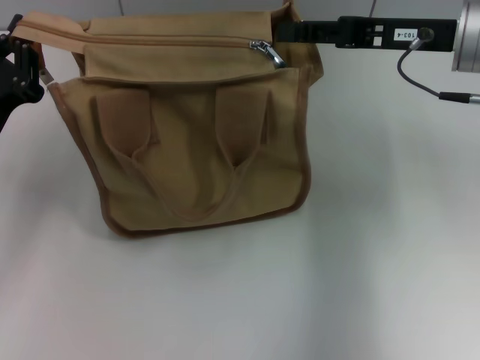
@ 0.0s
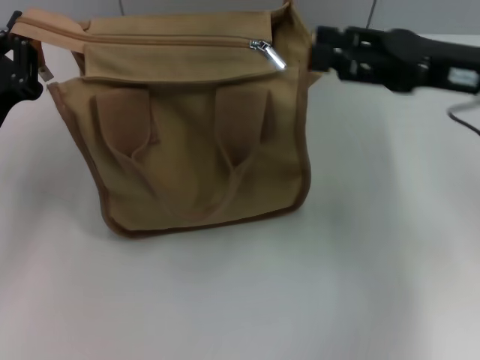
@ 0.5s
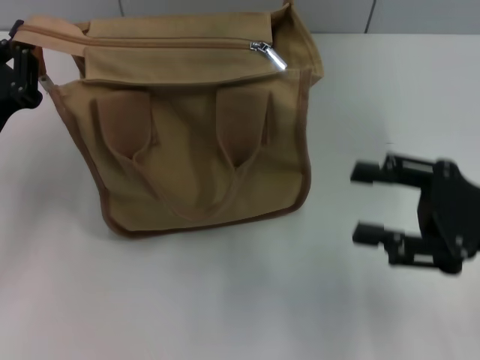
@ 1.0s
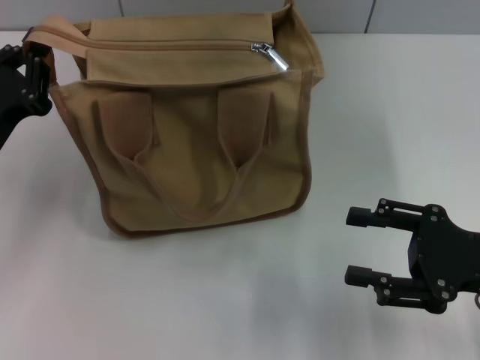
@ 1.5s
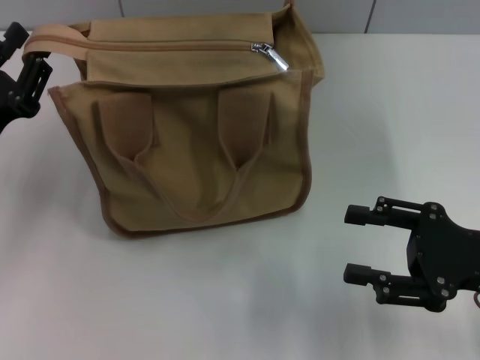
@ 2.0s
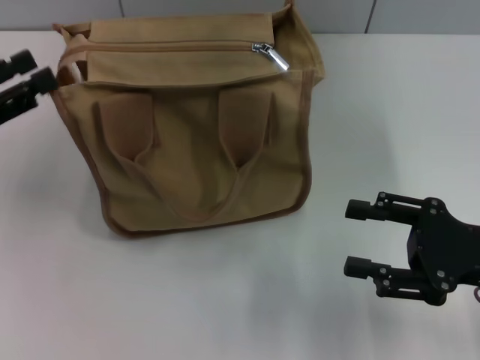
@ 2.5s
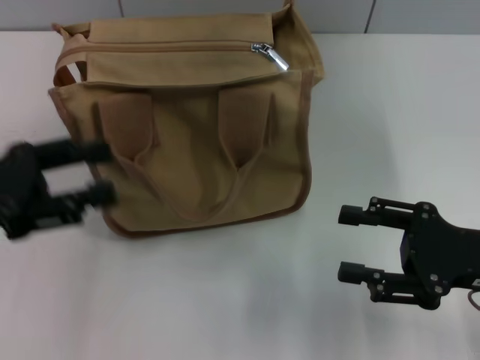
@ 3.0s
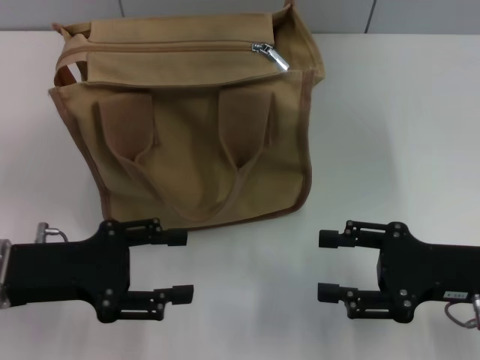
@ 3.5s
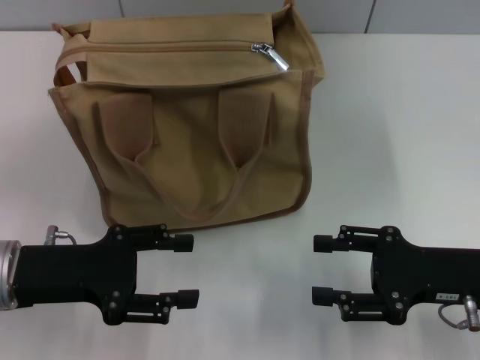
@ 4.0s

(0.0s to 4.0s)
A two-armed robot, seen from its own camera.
Step, 0.0s - 2.5s: Grab the zipper with your left hand.
0.0s - 2.0s: The right gripper goes approximately 20 cm backward, downward and to the right, and opens up.
2.0s - 4.0s: The left gripper opens its fingers.

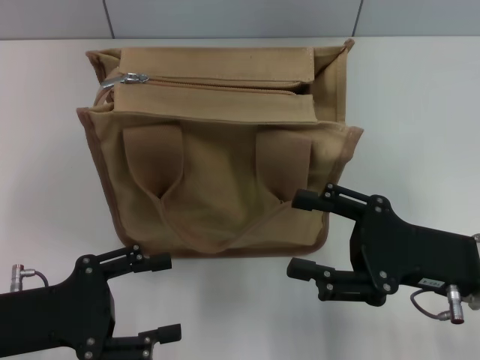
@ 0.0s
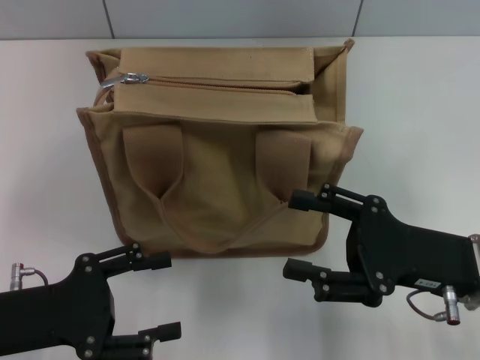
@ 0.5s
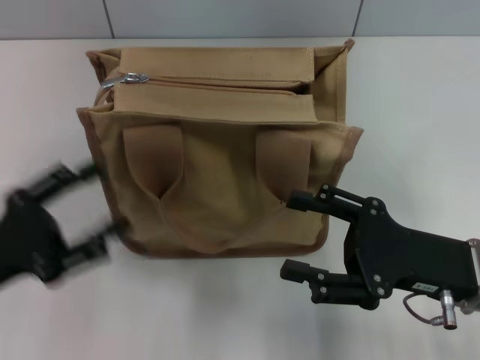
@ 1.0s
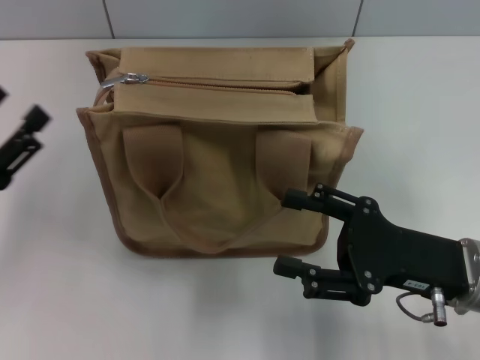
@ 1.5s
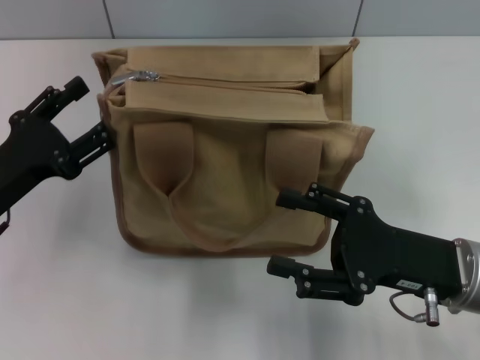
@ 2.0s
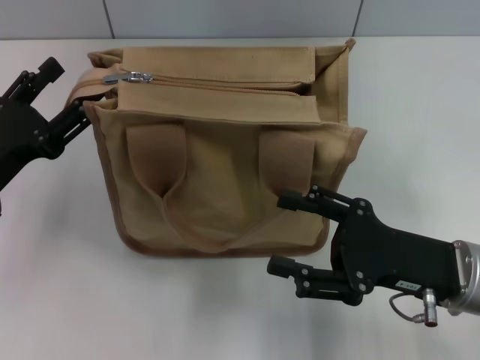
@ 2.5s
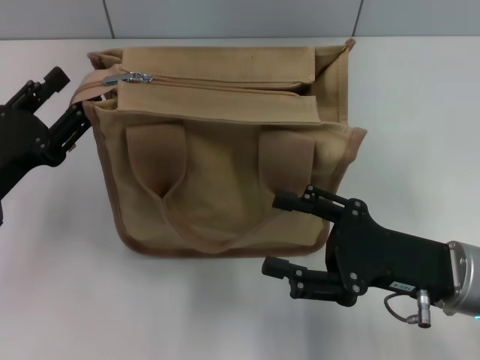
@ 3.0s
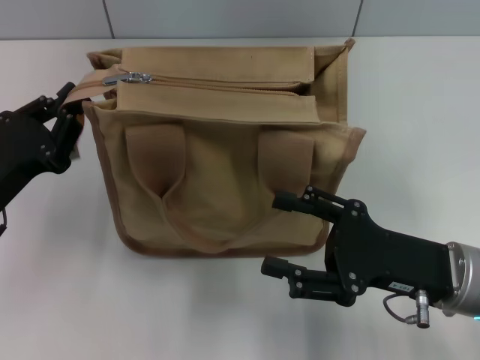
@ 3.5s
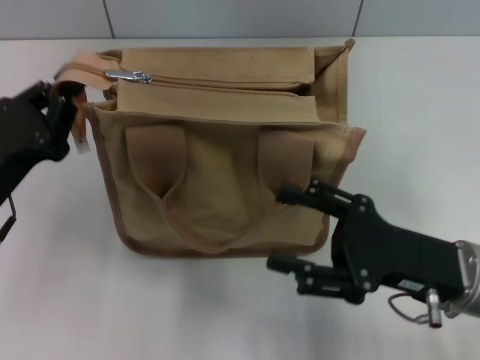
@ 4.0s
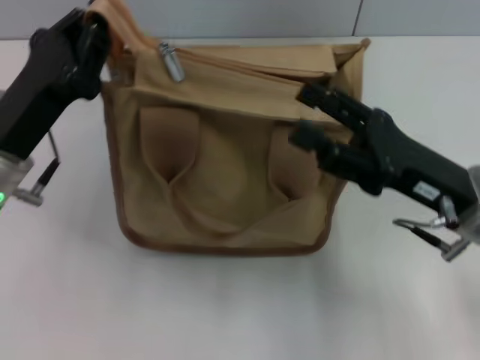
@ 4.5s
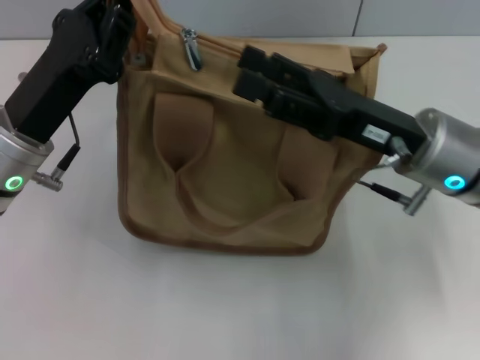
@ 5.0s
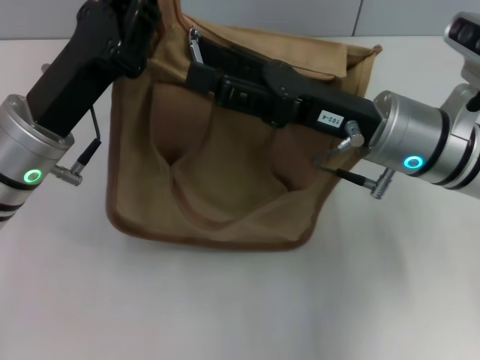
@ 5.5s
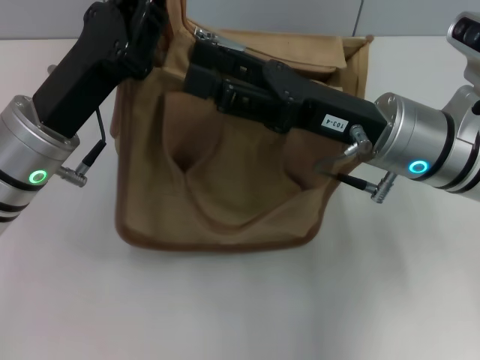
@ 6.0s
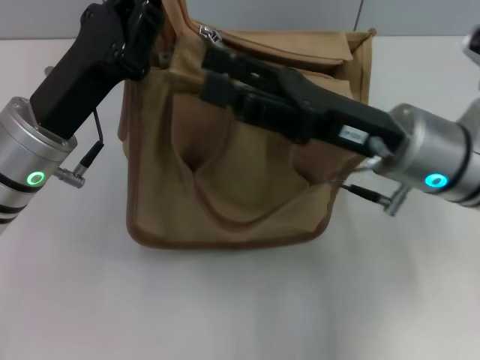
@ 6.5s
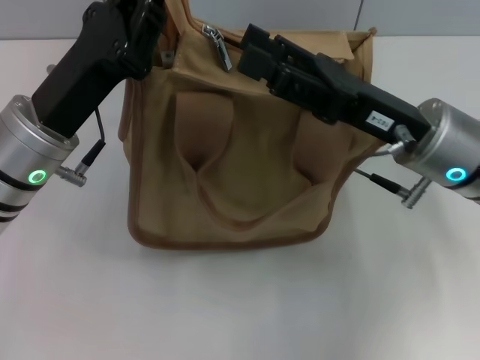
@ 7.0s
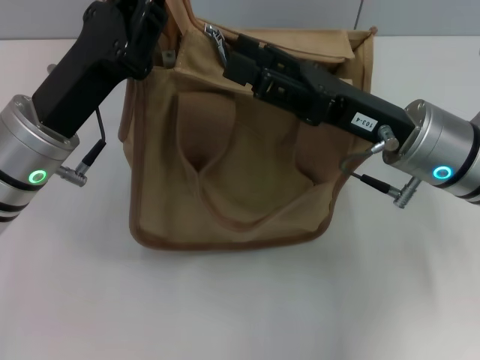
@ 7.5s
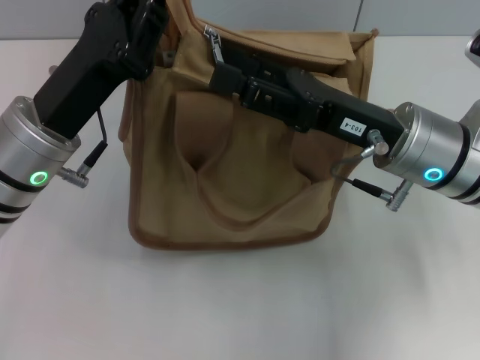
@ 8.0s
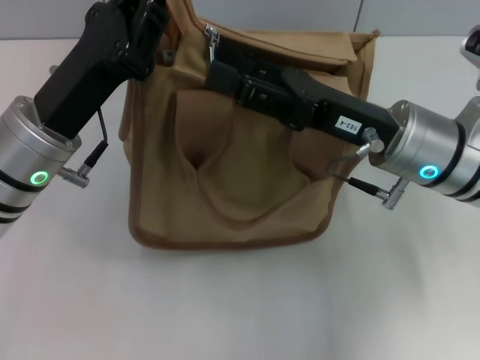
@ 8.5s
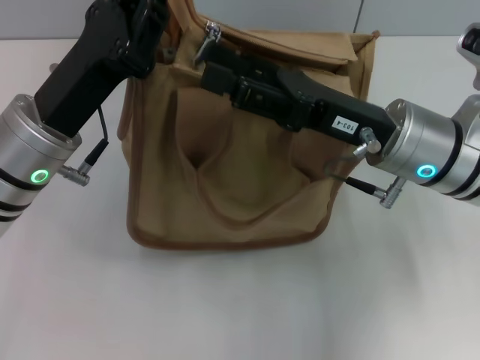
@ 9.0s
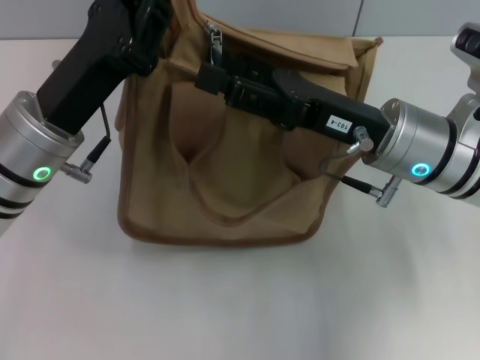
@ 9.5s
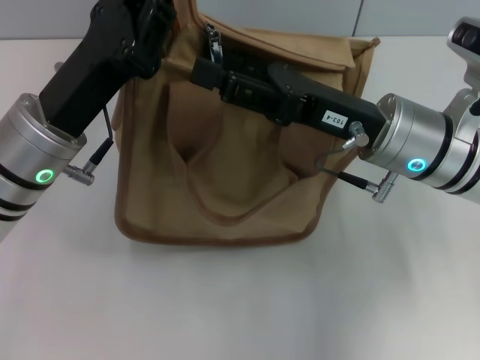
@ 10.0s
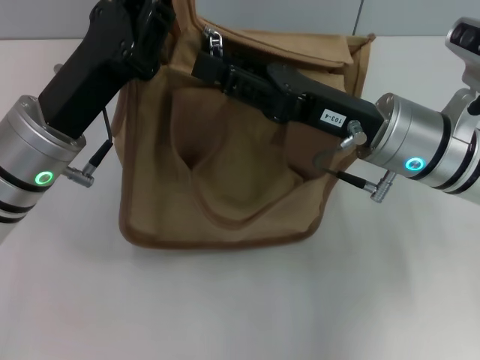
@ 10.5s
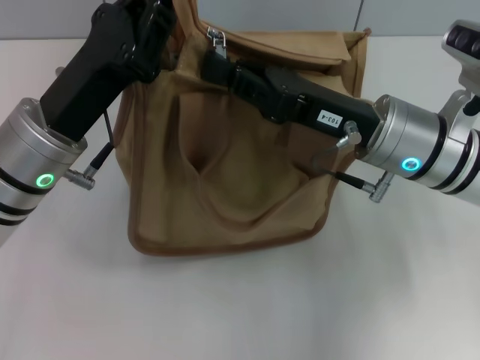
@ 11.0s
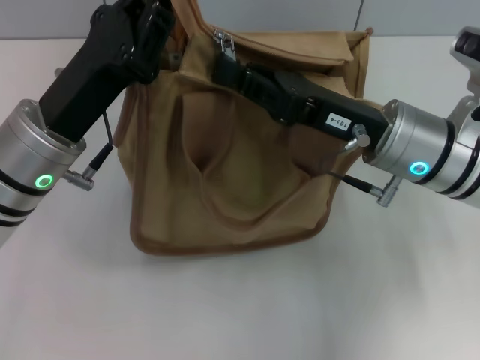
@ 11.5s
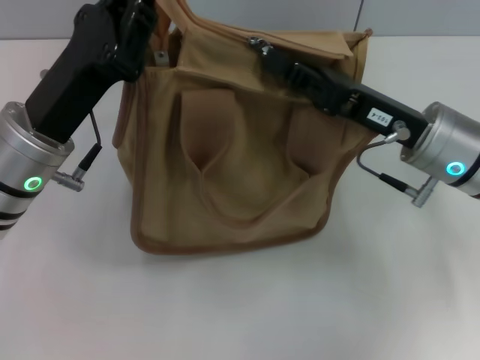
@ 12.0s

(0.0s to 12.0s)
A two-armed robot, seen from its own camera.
0.0s - 2.0s: The left gripper goes about 5 cm forward.
2.0s - 4.0s: The left gripper closes up.
4.0s - 6.0s: The right gripper is displaced forward, upward and to the left by about 15 cm. The left gripper goes roughly 10 cm to the right and forward.
6.0s - 8.0s: The grippers make only small movements.
8.0s - 10.0s: Both grippers stay about where they are.
10.0s - 12.0s: The right gripper closes its fingers.

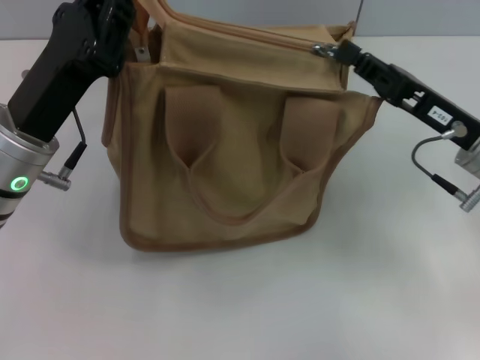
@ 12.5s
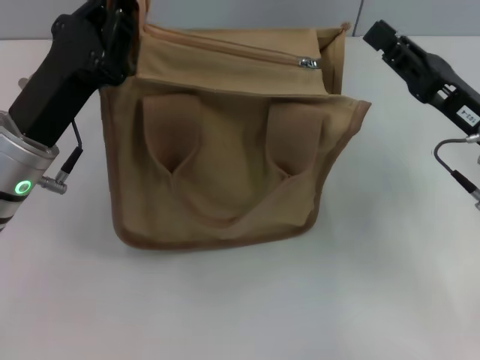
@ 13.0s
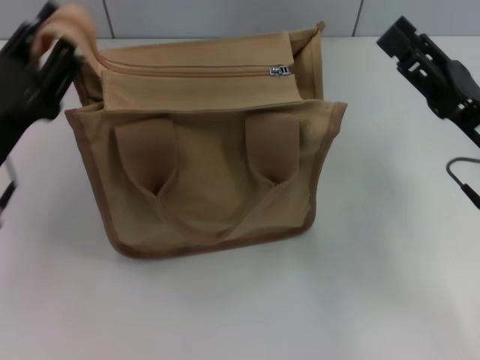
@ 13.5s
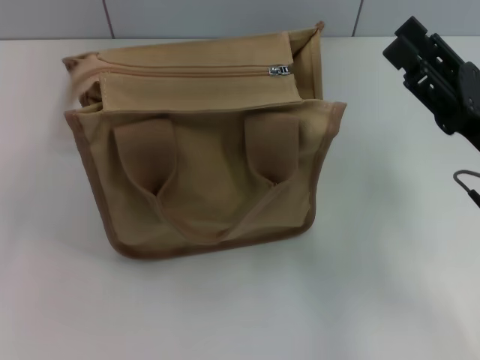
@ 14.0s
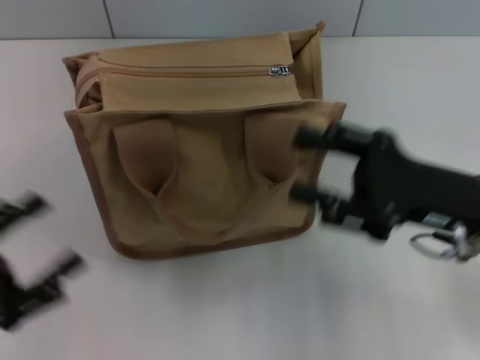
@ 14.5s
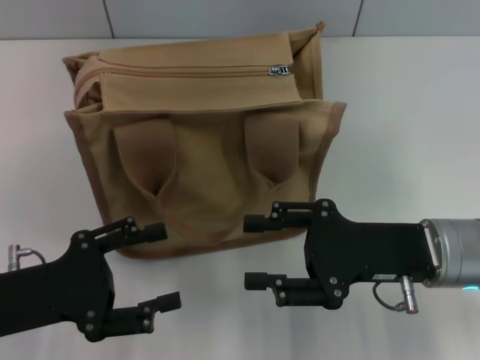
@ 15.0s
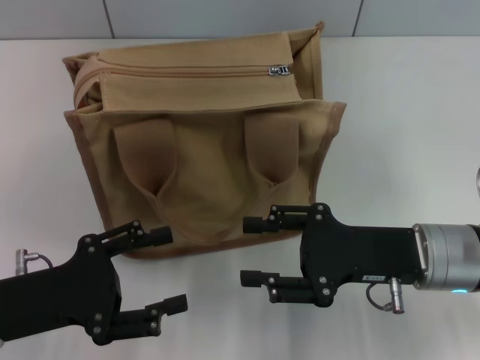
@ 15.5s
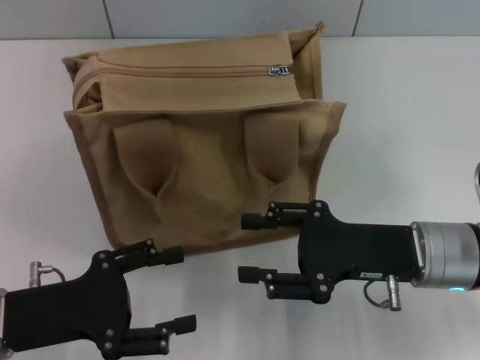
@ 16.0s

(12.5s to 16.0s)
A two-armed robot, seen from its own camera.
Step, 13.0s - 13.5s: Grab the zipper with your left hand.
12.5s - 14.5s: The left gripper heads backward and to the left, covering some 20 cm, and opens up. Meanwhile the right gripper opens.
14.5s - 16.0s: The left gripper goes roughly 5 cm to the right.

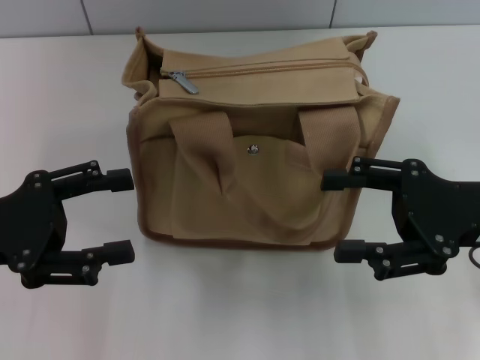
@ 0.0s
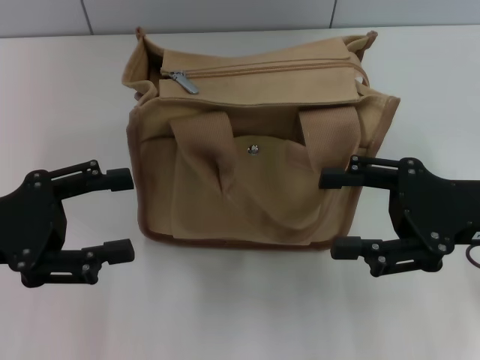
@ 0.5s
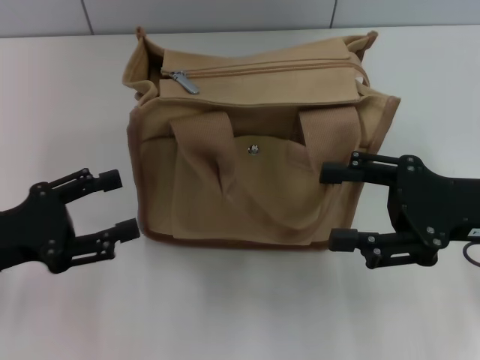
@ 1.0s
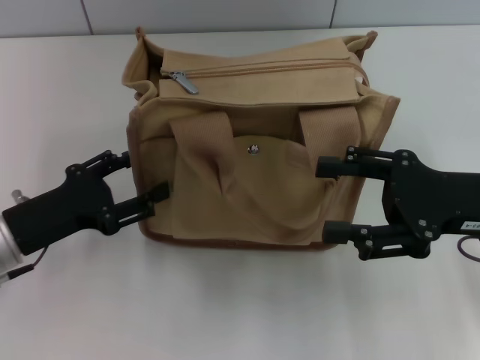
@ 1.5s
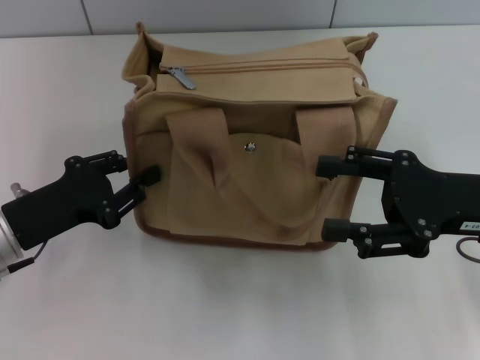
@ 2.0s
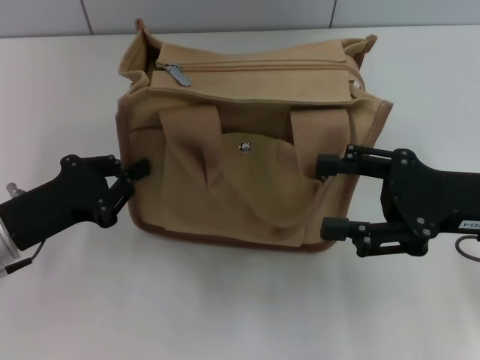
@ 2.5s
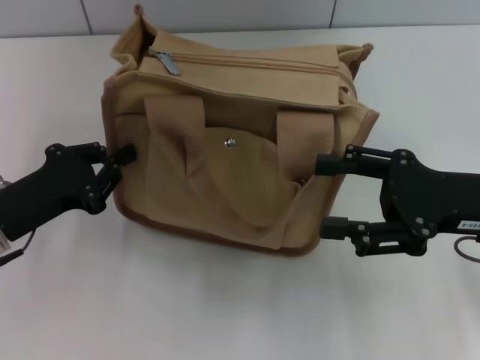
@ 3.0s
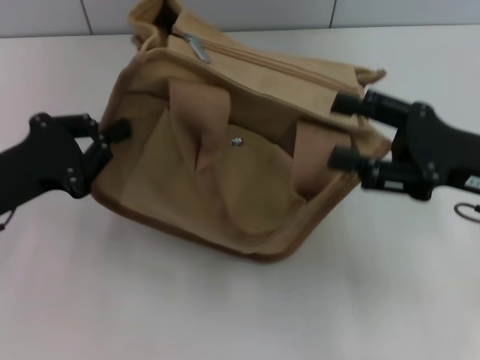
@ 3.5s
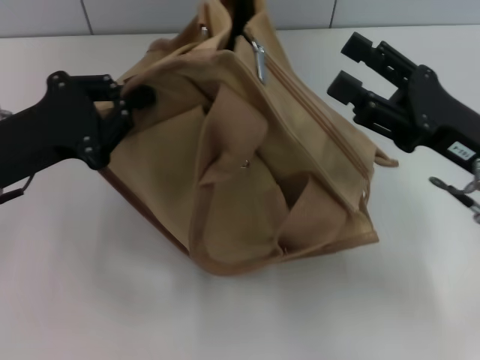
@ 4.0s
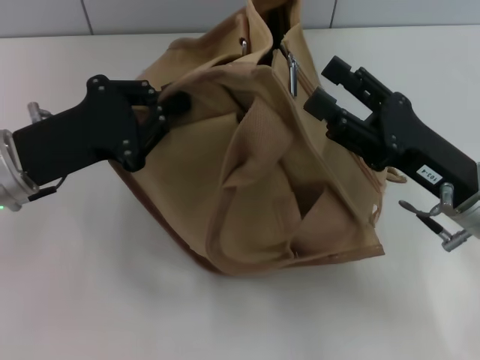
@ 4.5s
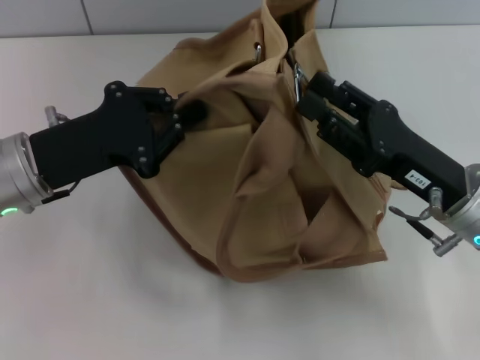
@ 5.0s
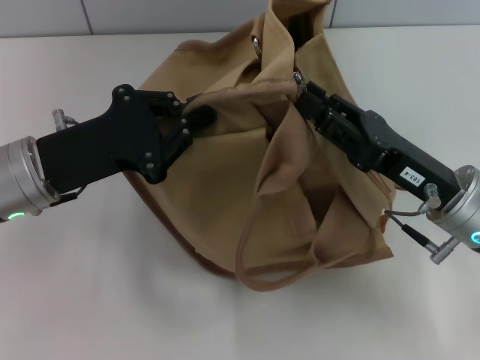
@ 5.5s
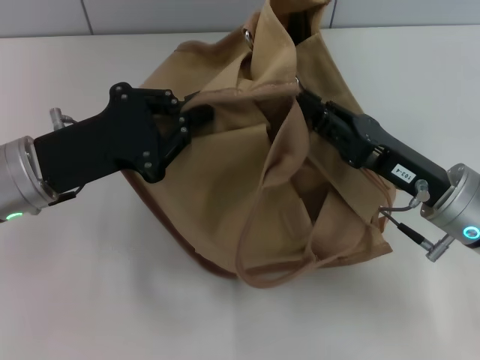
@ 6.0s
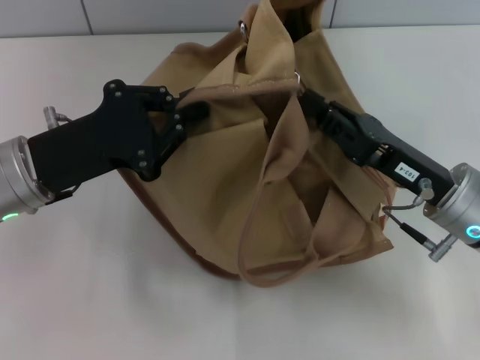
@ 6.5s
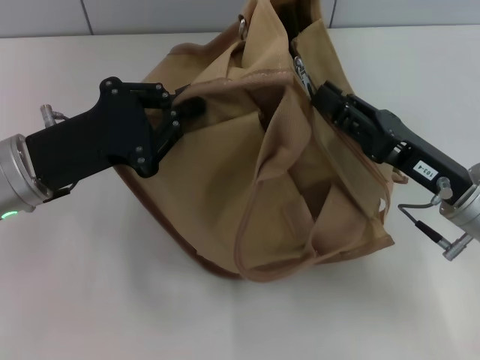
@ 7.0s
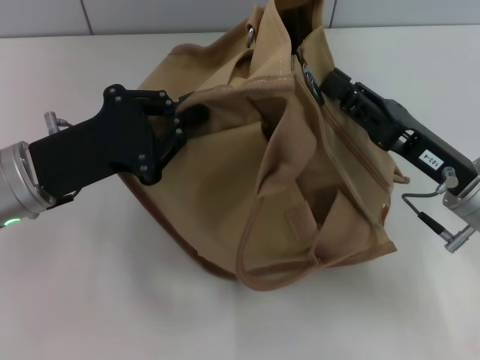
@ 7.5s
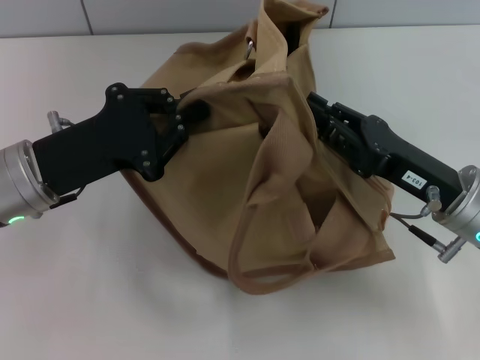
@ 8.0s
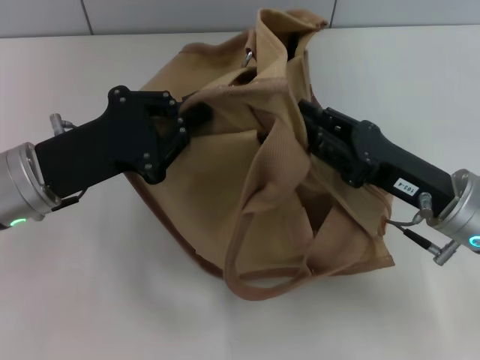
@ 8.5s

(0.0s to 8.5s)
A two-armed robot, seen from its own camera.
0.0s - 2.0s: The left gripper is displaced downward by some 5 cm, and closes up.
2.0s - 4.0s: The left gripper moves upward, about 5 cm, and closes.
4.0s - 6.5s: The right gripper closes up.
6.5s - 8.5s: There are only small adjustments of the grippers.
